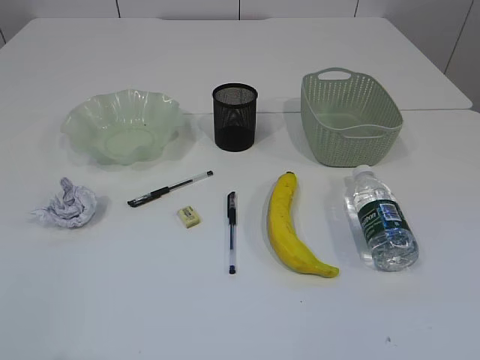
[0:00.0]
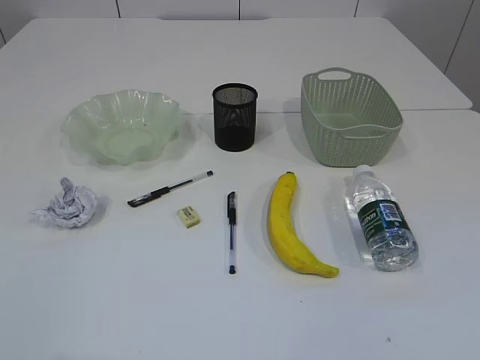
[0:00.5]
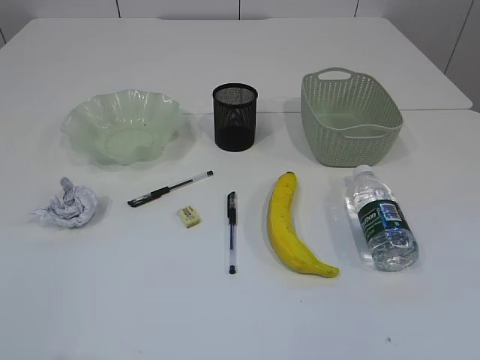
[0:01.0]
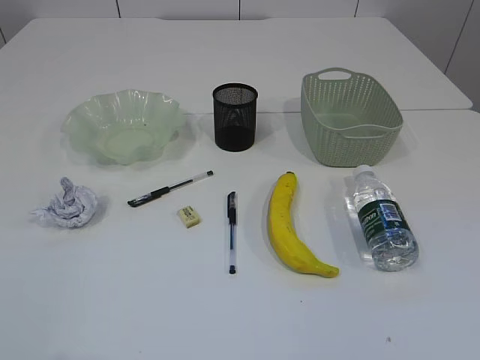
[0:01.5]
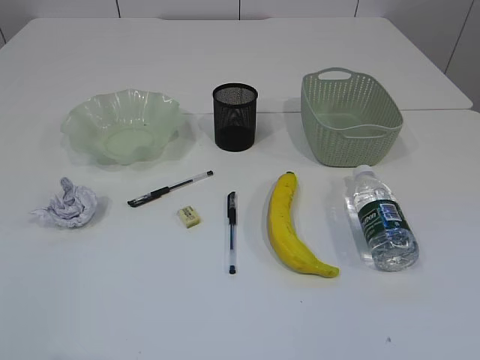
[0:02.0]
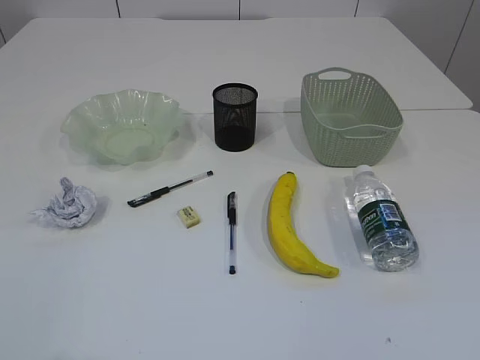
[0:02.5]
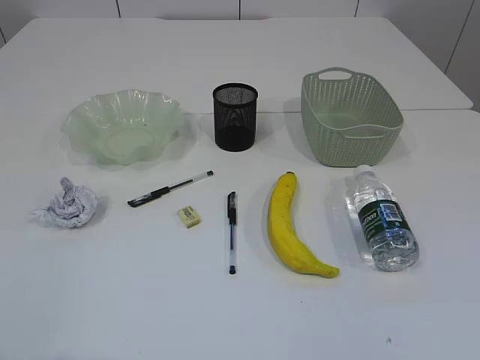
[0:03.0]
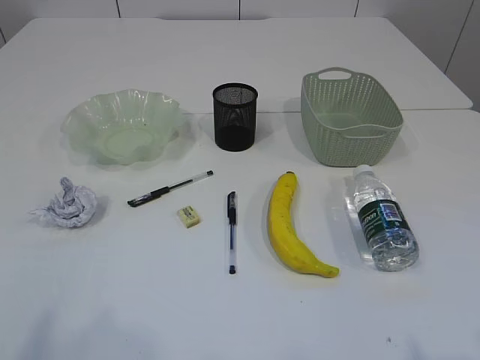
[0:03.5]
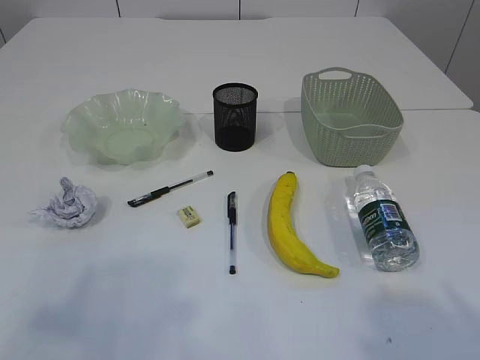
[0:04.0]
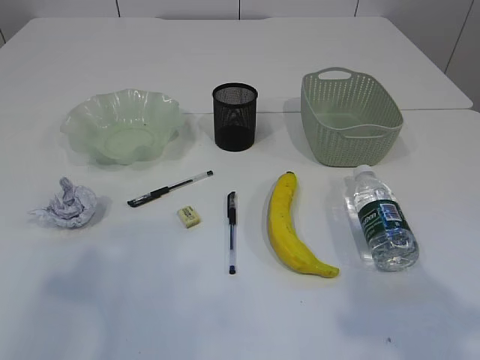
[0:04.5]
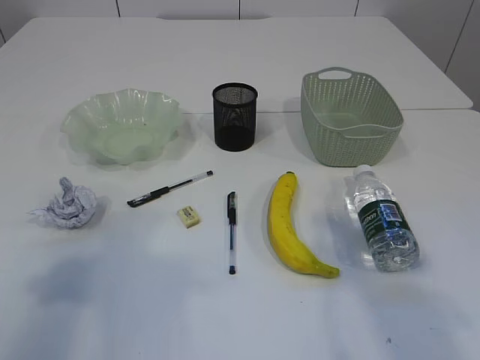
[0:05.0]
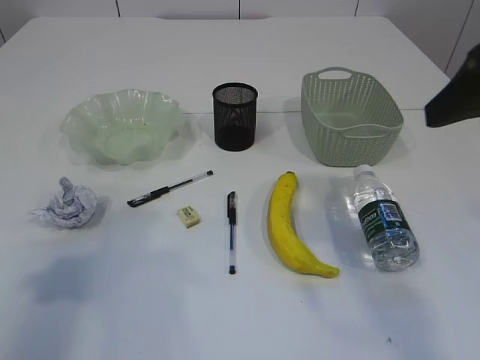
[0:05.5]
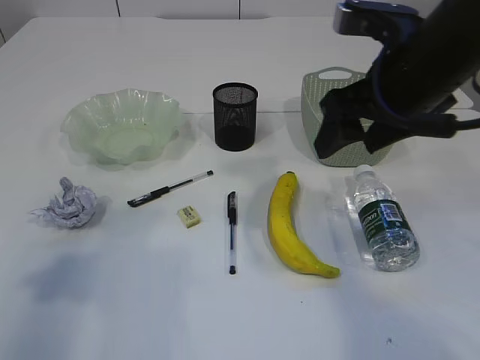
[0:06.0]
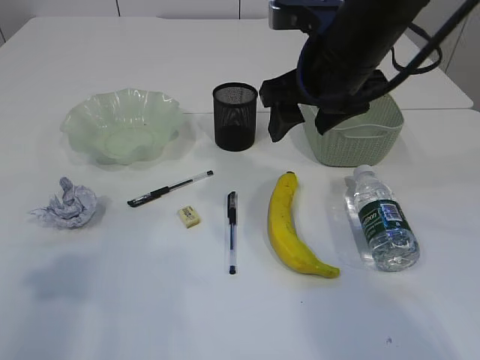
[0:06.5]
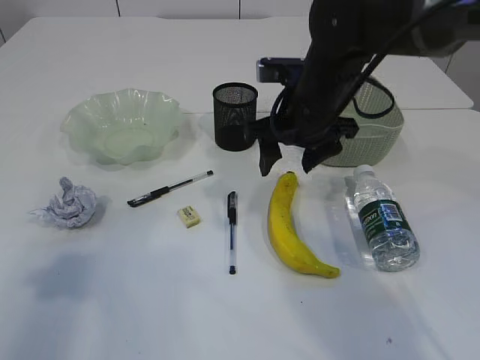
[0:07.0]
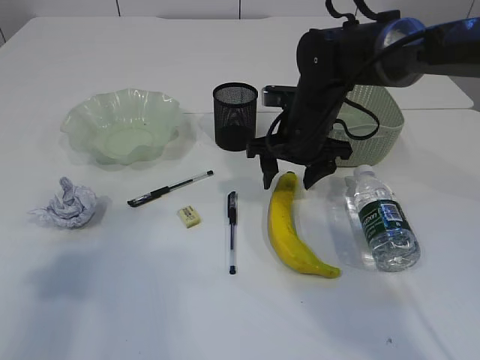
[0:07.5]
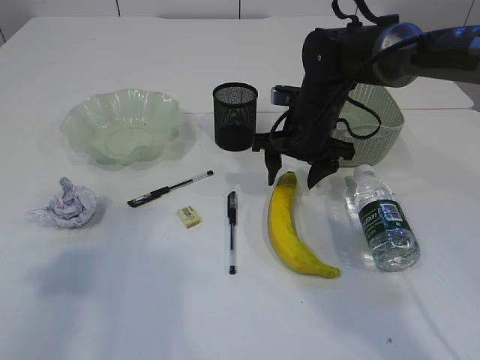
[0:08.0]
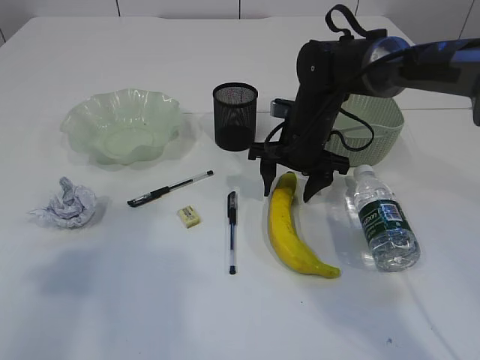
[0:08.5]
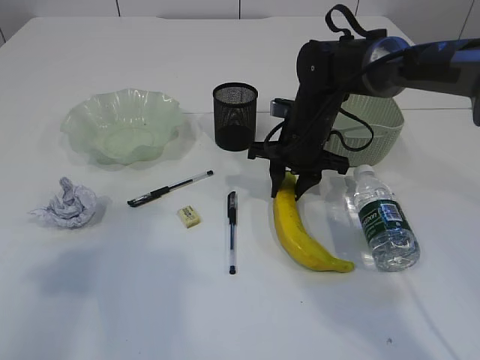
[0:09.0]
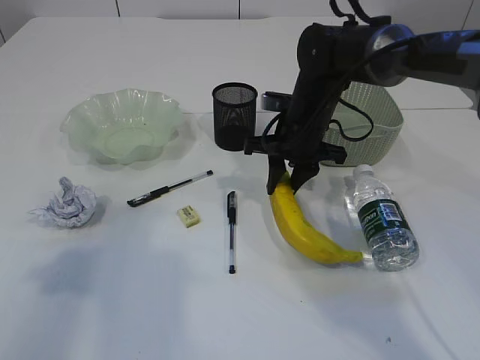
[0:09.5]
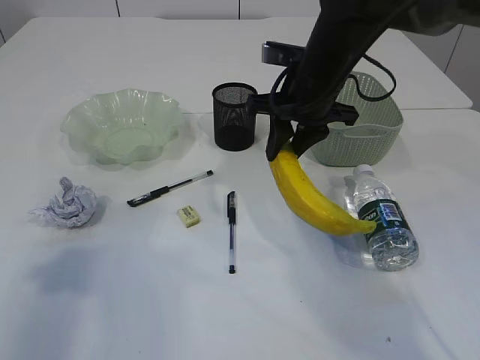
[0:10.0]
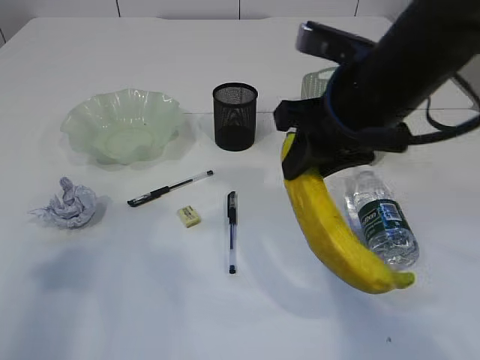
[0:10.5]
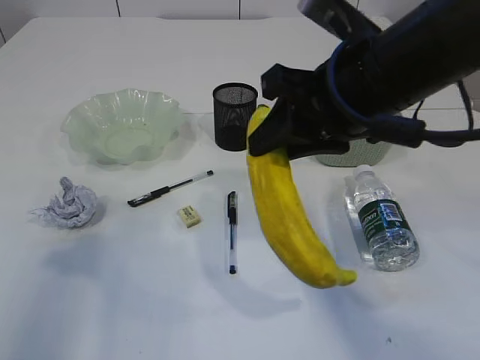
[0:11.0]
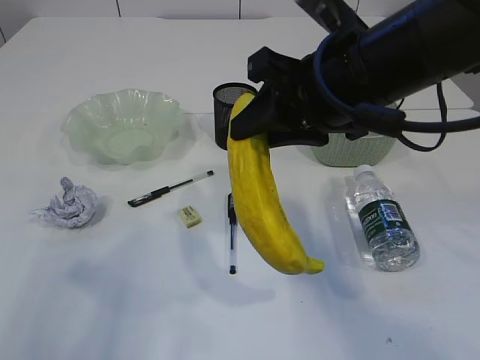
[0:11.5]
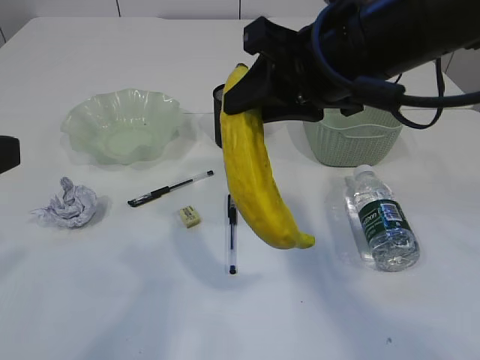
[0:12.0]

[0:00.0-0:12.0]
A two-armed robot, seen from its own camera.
2.0 to 4.0 s: The left gripper heads forward and upward, covering about 10 cm.
4.0 to 6.0 s: The left gripper moves forward, about 10 cm; the right gripper travels forward and to the left by some 30 cm.
6.0 to 8.0 s: The right gripper shifts approximately 20 cm downward and forward.
8.0 to 10.0 s: The right gripper shifts roughly 5 cm upward, and closes.
10.0 to 12.0 s: The left gripper is displaced to the right by approximately 5 cm. Meanwhile the right gripper heads backward and upward, covering about 15 cm.

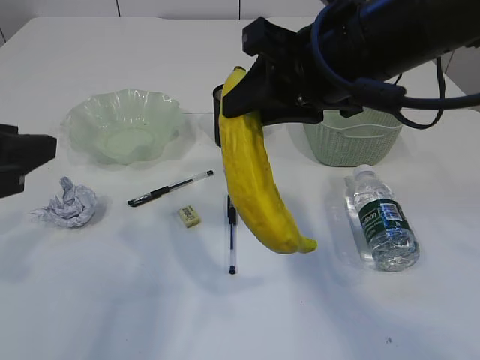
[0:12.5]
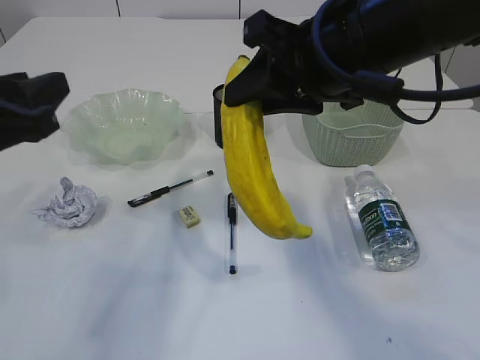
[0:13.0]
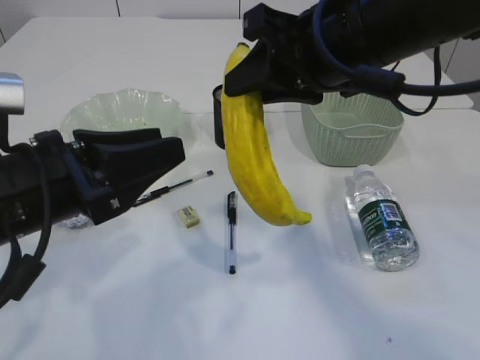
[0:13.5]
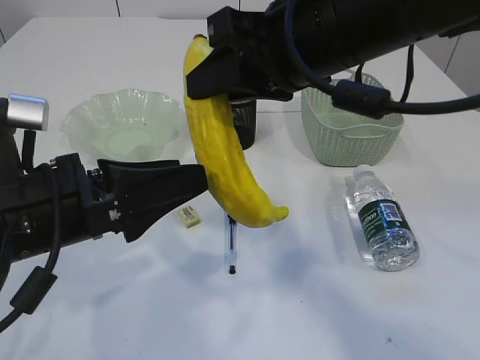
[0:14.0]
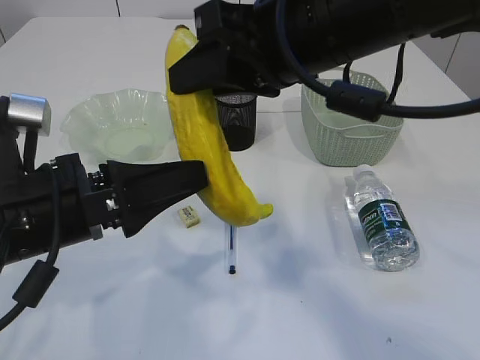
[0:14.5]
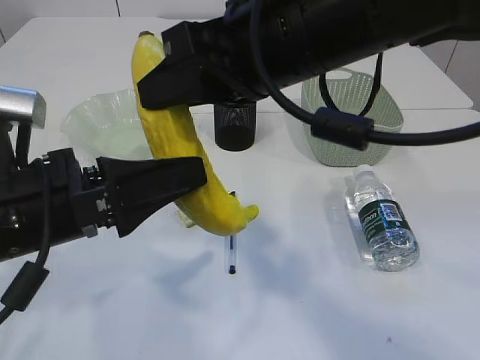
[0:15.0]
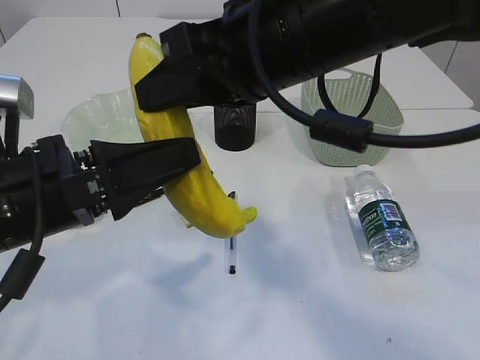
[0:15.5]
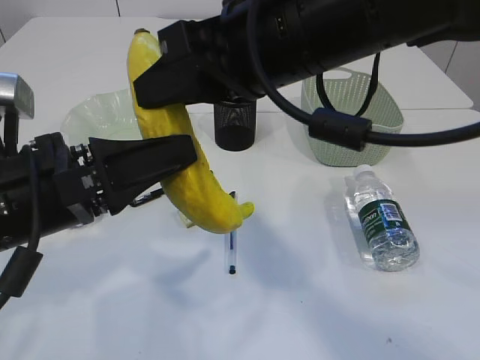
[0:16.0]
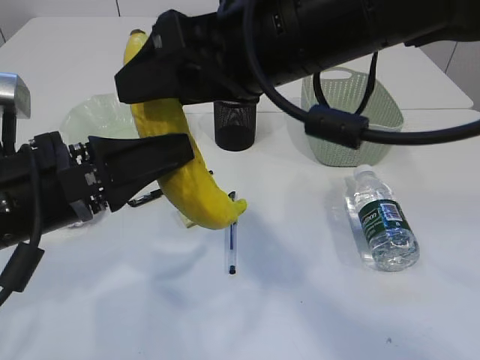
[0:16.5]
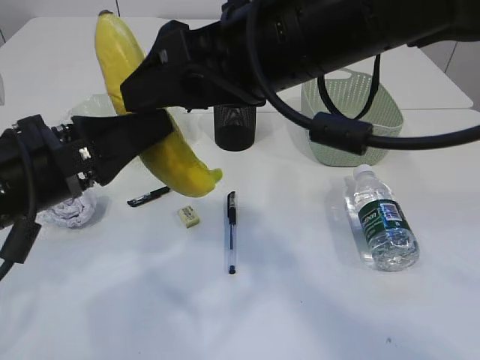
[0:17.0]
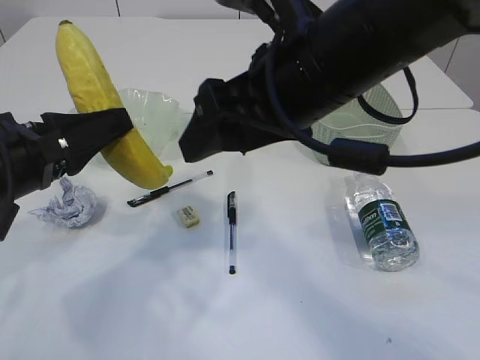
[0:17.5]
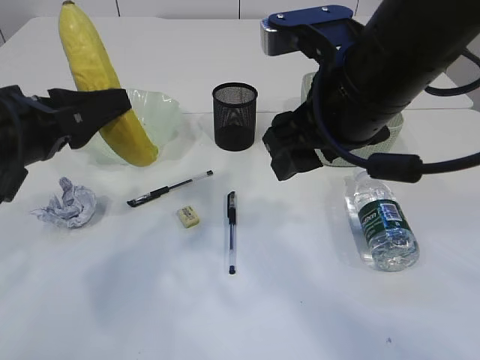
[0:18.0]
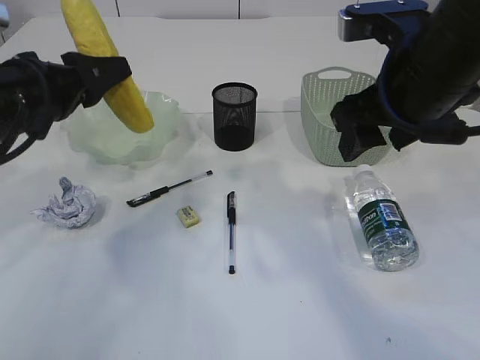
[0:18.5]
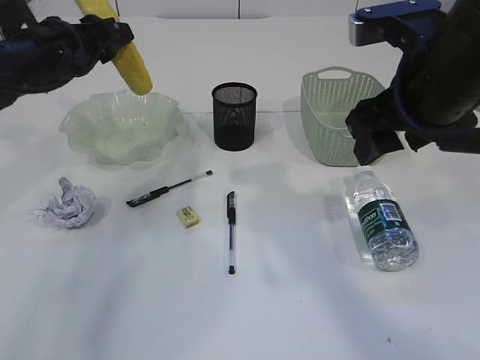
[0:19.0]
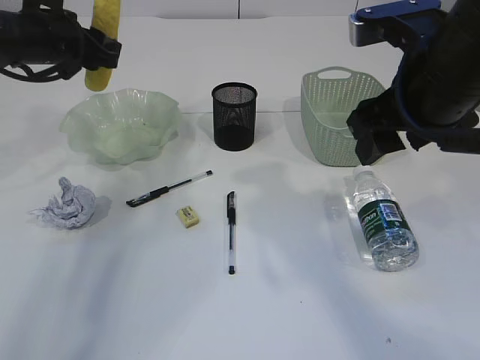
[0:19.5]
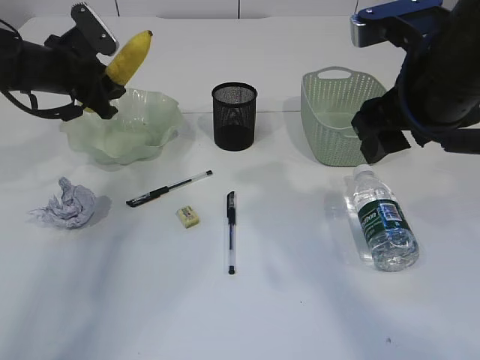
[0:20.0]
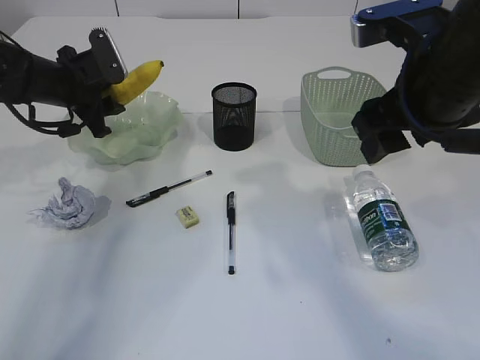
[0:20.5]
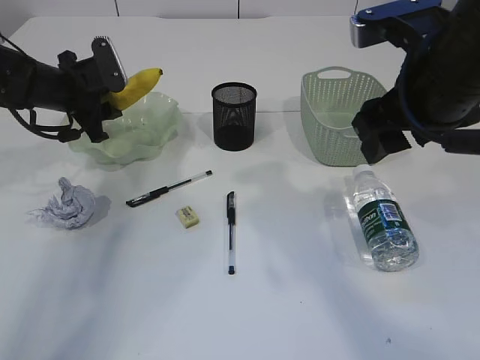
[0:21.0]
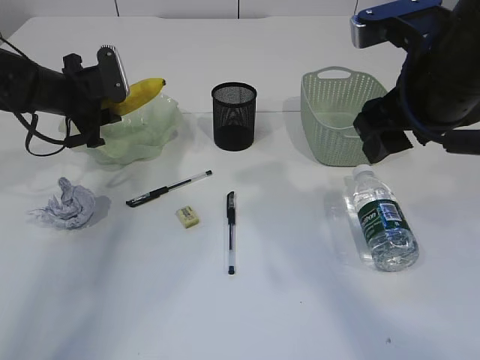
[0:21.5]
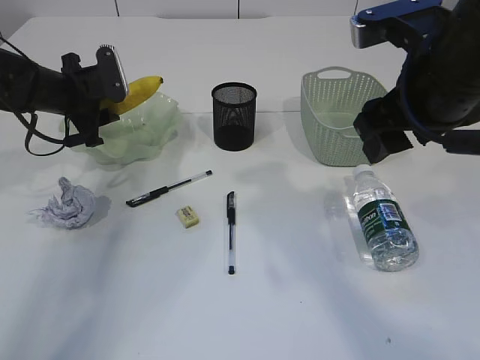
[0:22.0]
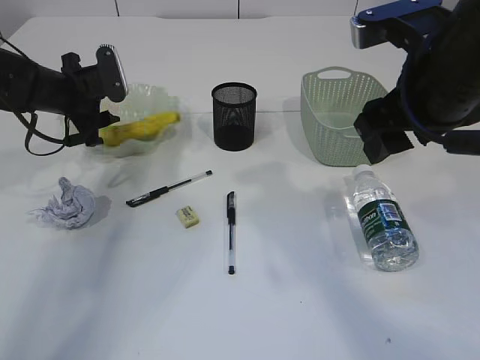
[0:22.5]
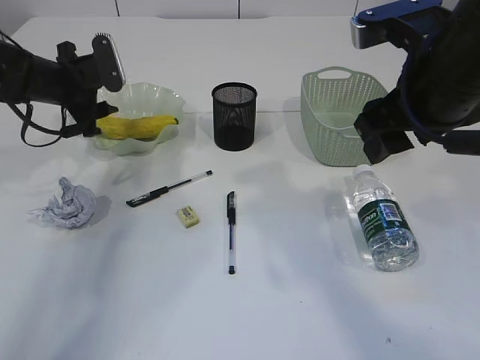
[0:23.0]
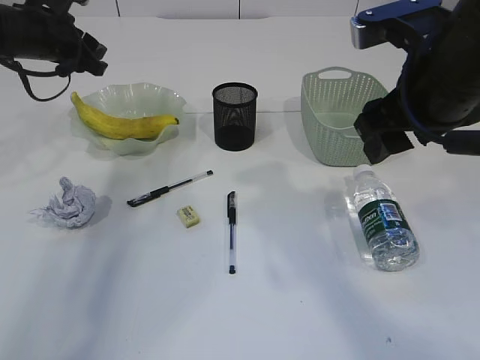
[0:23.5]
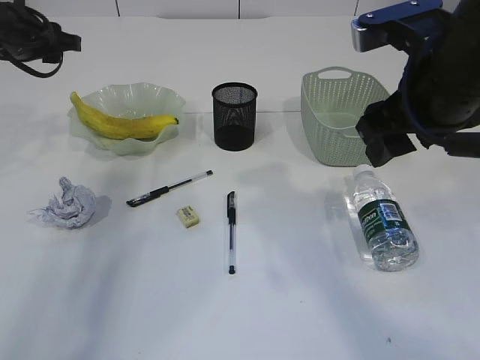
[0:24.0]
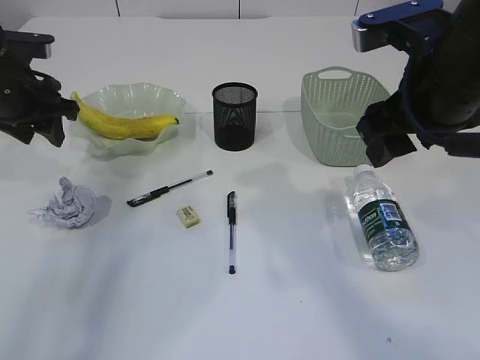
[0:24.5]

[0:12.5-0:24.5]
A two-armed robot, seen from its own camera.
Step, 12.5 to 17.5 s: Hand over the banana.
Step, 18.0 to 23.5 s: Place the banana in the plate.
12.5 to 14.5 s: The left gripper goes about 10 cm to the right and downward, and opens.
14.5 to 16.5 s: The left gripper closes; the right gripper opens its fingers.
16.5 to 18.5 s: The right gripper travels to the right by roughly 10 cm. Meanwhile the left gripper shifts about 10 cm forward and to the left.
18.5 to 20.5 s: The left gripper travels forward by about 15 cm.
20.5 to 22.5 s: There are only small adjustments of the grippers.
22.5 to 24.5 s: The left gripper is displaced backward and upward by about 10 cm.

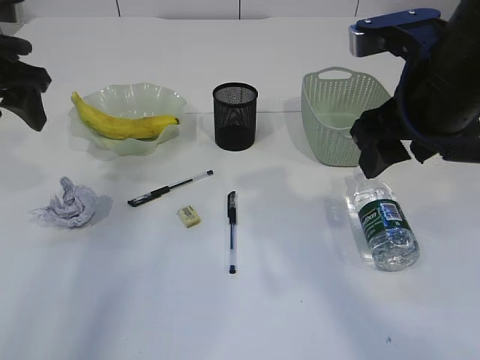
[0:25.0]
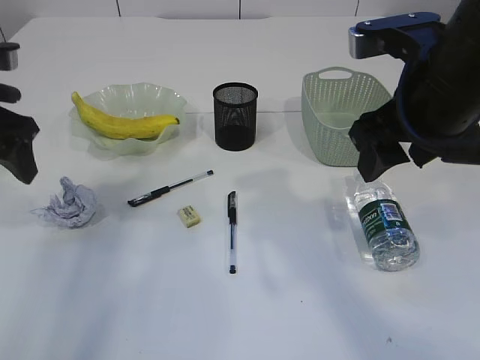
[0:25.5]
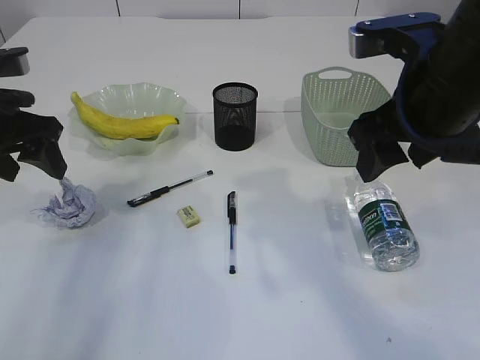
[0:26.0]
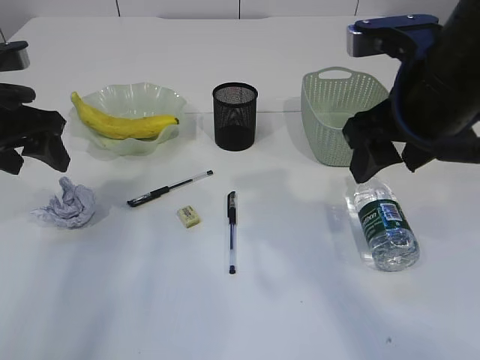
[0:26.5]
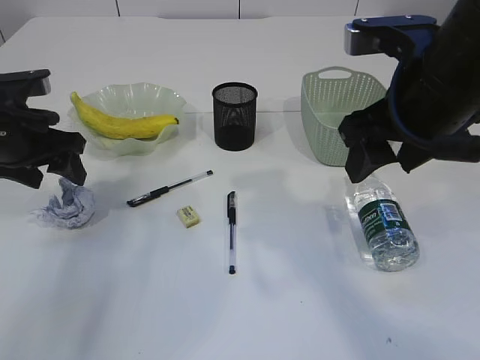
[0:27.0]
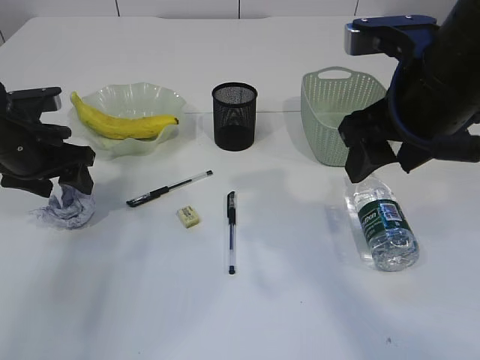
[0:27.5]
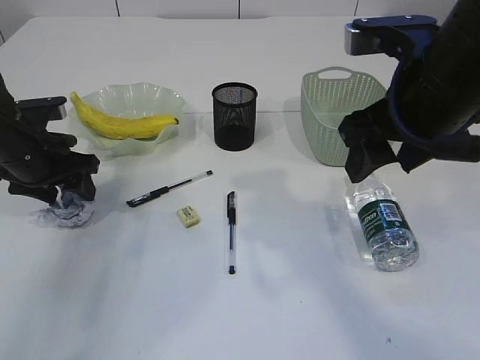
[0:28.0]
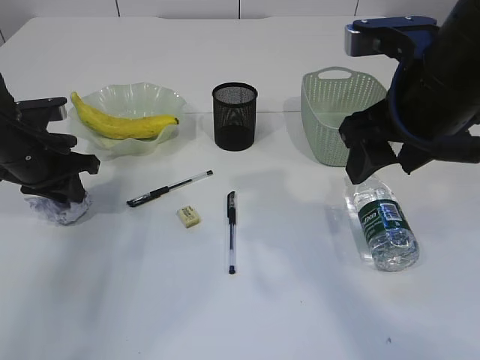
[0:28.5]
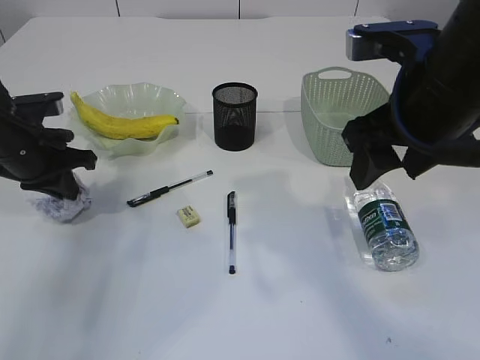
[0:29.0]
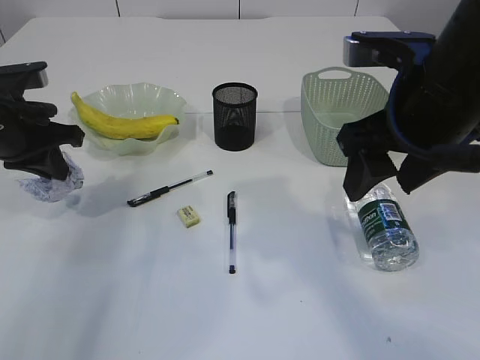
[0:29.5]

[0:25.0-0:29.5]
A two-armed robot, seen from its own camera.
25.0 to 27.0 s: The left gripper goes about 10 cm downward.
27.0 to 29.5 s: The left gripper closes its fingers.
